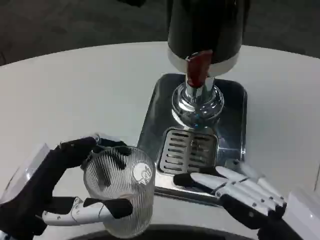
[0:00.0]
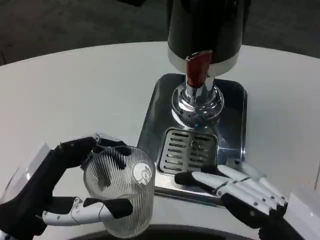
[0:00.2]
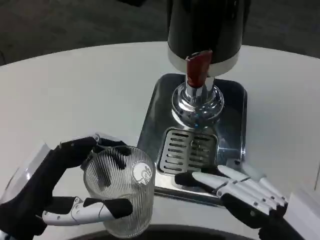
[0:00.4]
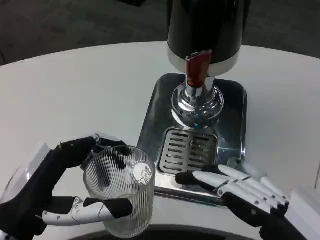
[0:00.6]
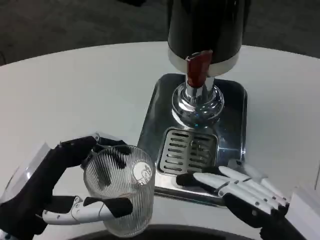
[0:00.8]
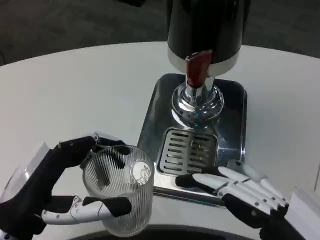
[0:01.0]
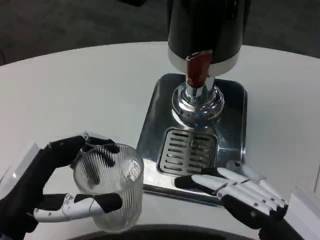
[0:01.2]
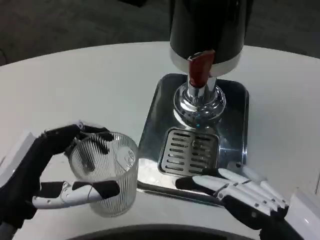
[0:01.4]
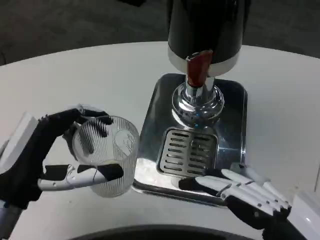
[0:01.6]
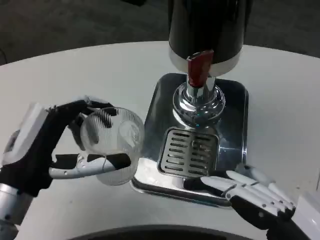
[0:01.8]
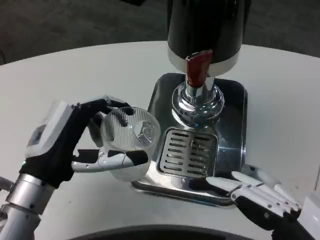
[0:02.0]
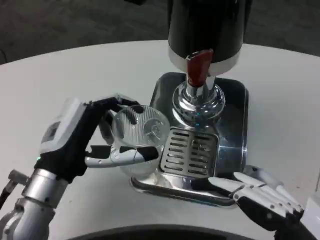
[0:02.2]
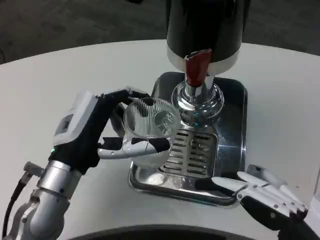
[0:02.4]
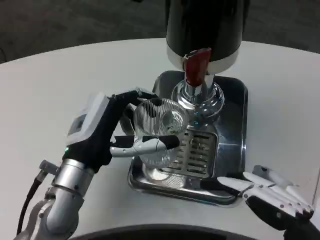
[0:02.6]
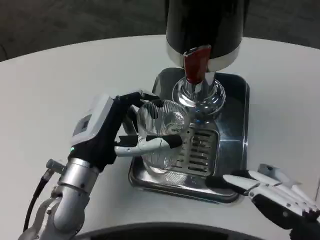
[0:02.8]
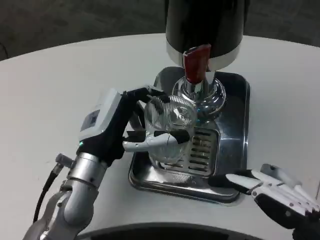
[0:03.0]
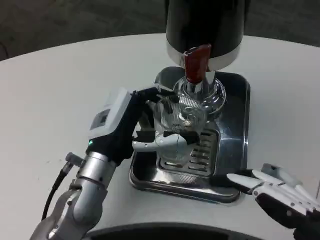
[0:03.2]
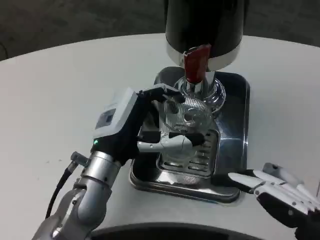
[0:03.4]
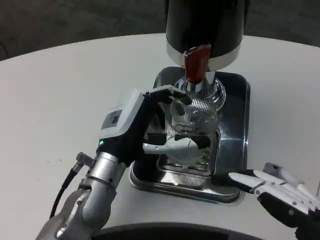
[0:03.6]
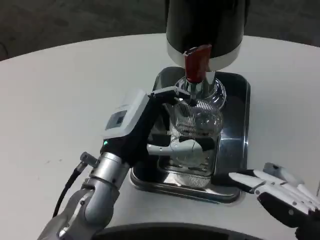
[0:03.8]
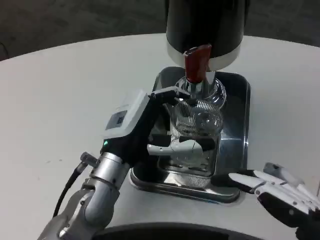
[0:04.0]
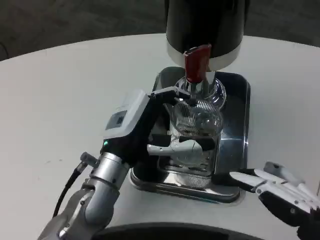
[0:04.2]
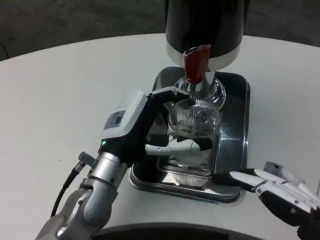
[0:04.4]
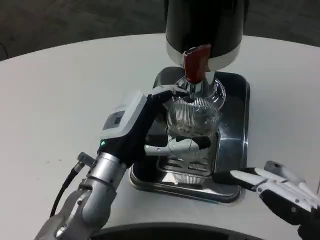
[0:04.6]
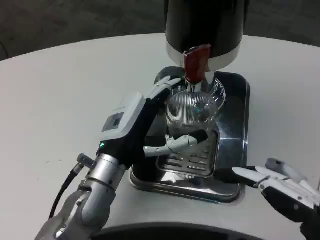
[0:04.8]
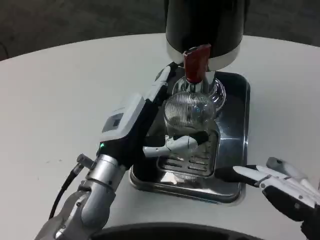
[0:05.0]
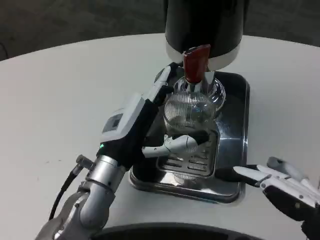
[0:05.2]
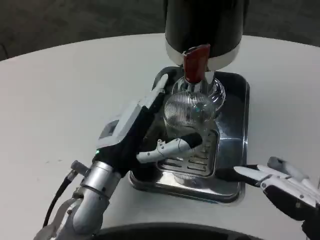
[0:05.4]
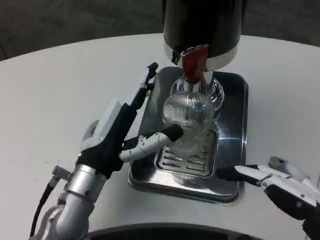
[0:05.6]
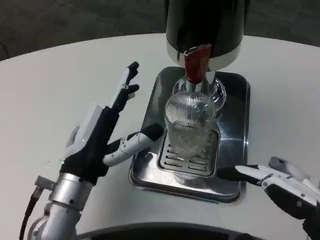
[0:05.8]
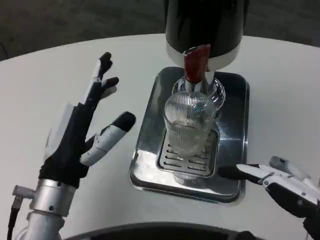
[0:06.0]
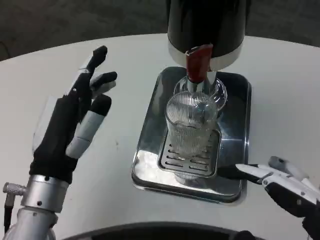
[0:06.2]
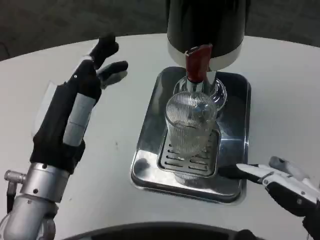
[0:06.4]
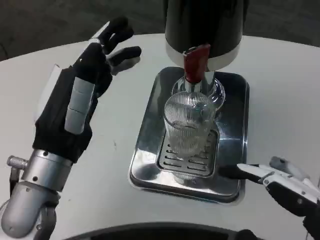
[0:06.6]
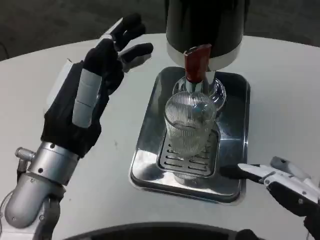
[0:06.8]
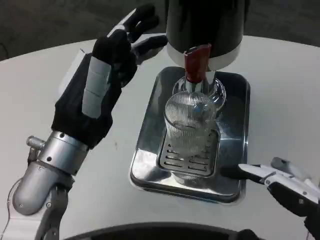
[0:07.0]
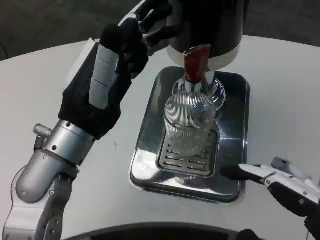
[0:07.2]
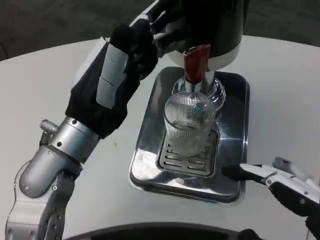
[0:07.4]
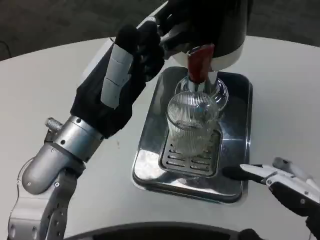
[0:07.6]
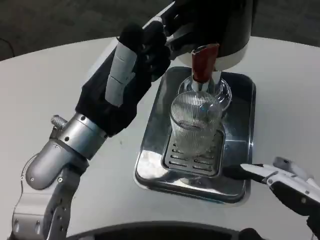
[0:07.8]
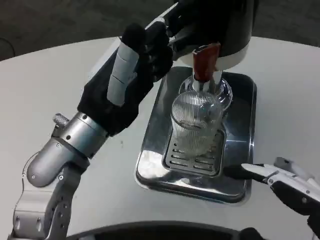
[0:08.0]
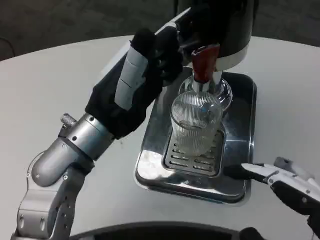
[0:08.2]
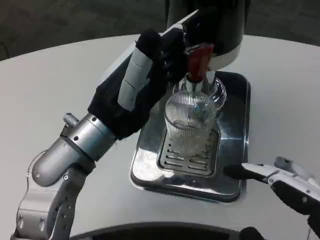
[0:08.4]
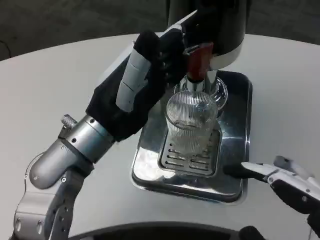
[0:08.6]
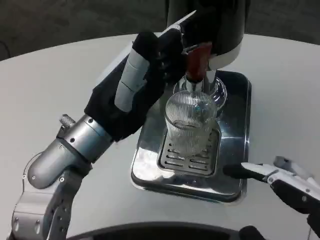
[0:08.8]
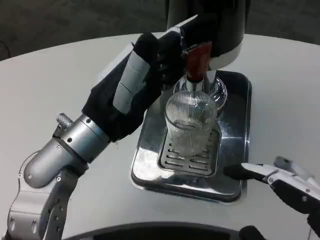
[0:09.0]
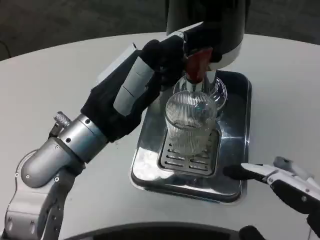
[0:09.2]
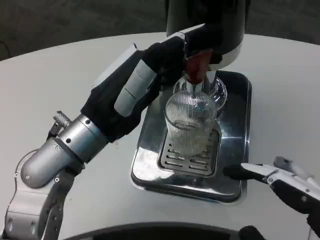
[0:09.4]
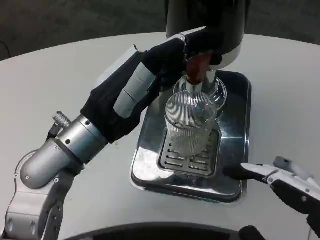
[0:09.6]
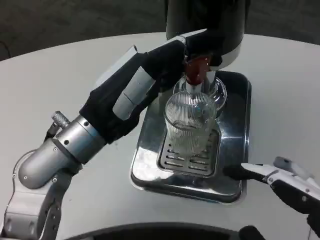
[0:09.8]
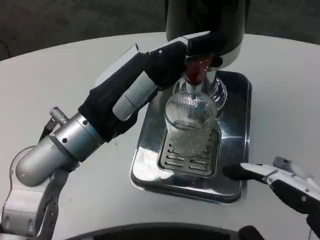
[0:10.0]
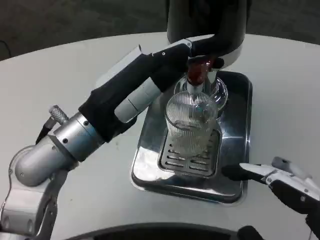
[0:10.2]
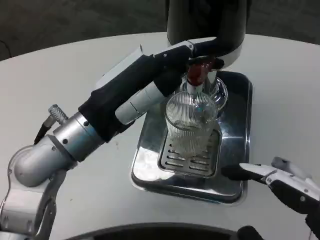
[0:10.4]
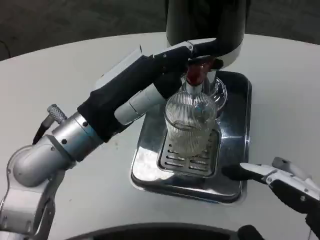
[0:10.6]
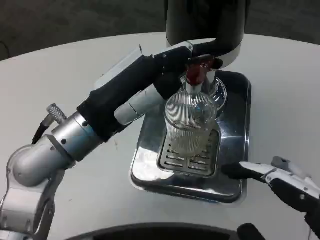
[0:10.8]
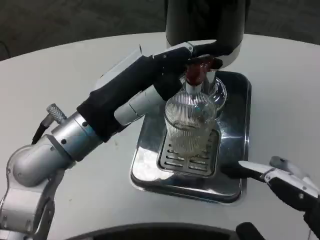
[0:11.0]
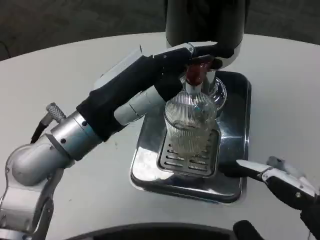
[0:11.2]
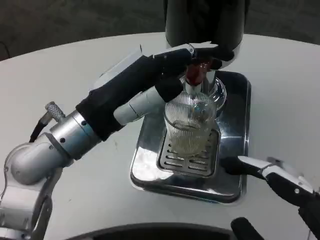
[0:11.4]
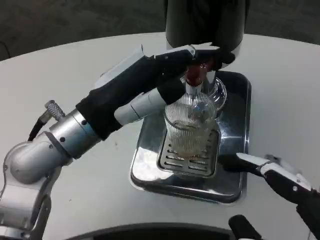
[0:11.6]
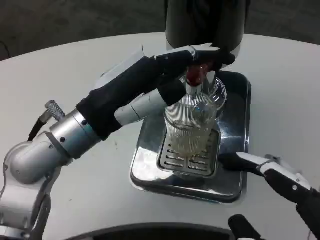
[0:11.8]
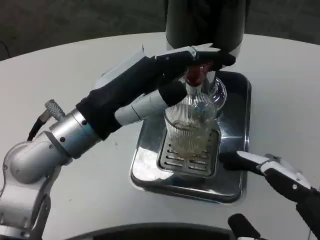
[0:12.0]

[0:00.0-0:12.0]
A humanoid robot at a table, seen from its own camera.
Task of the whole recording: Grasp the cup under the faucet to collect the drink, then remove the cup.
0:01.6 to 0:03.0: The left hand travels forward and to the right by roughly 15 cm.
0:03.0 to 0:04.4: There are only small adjustments of the hands.
0:04.4 to 0:06.0: The left hand moves backward and to the left, roughly 10 cm.
0:06.0 to 0:07.6: The left hand is displaced upward by roughly 10 cm.
0:07.6 to 0:09.0: The hands make only small movements.
0:09.0 to 0:10.4: The hands stay close to where they were, moving slightly.
0:10.4 to 0:12.0: There are only small adjustments of the hands.

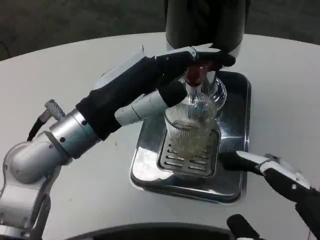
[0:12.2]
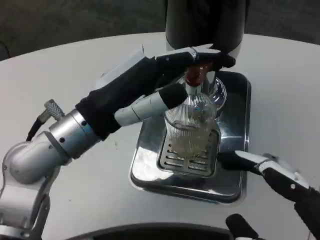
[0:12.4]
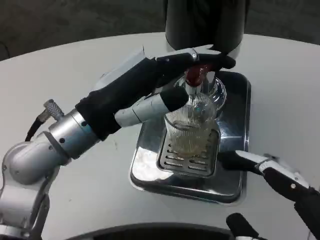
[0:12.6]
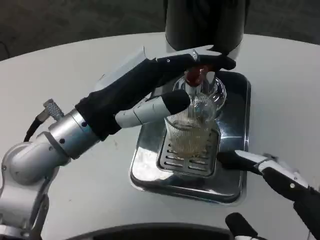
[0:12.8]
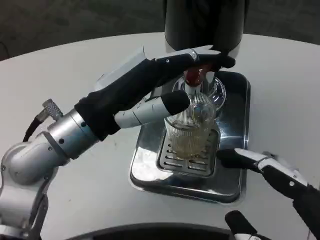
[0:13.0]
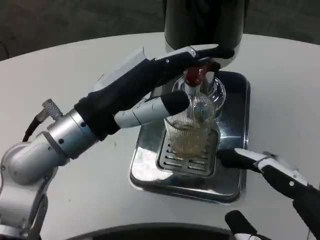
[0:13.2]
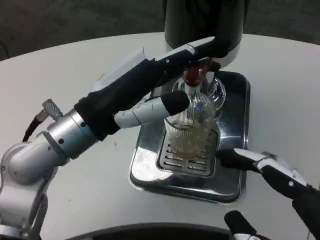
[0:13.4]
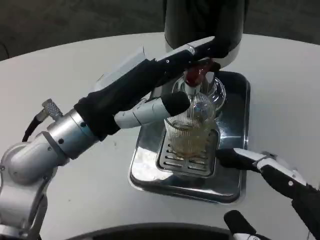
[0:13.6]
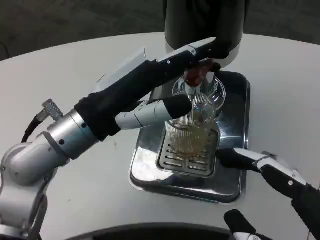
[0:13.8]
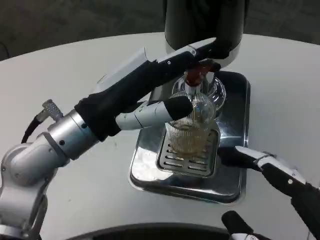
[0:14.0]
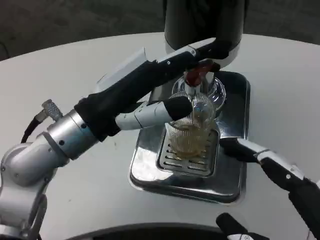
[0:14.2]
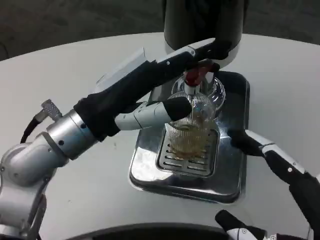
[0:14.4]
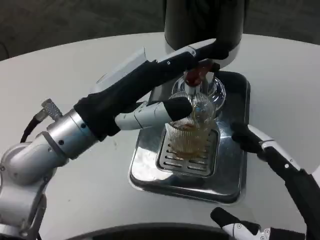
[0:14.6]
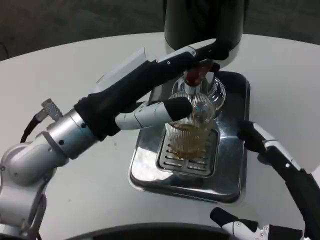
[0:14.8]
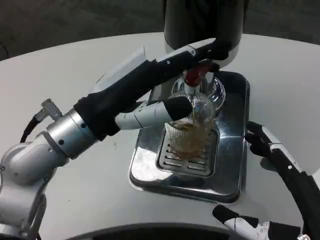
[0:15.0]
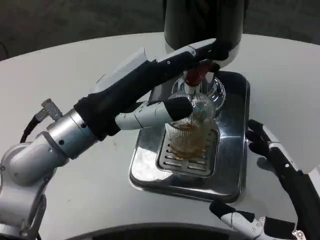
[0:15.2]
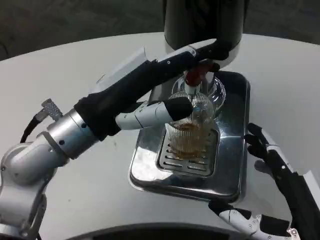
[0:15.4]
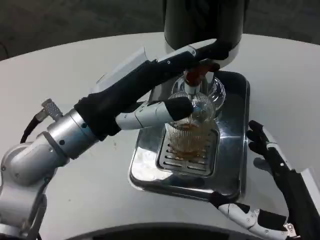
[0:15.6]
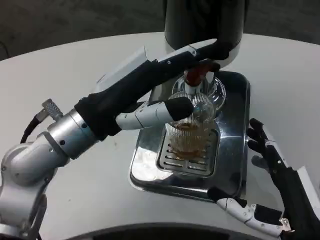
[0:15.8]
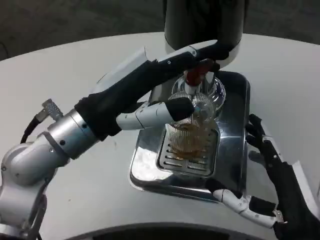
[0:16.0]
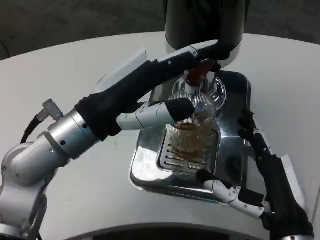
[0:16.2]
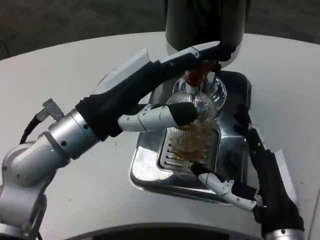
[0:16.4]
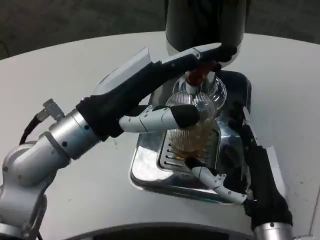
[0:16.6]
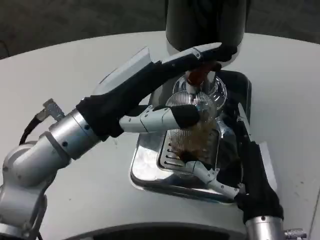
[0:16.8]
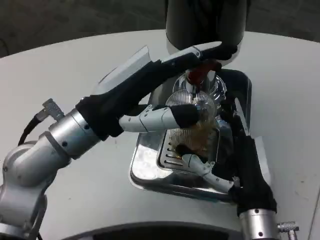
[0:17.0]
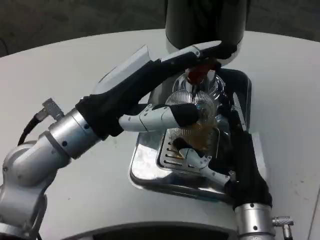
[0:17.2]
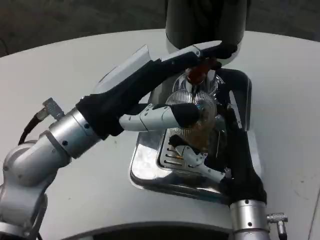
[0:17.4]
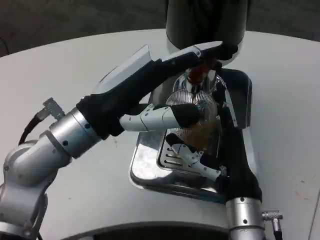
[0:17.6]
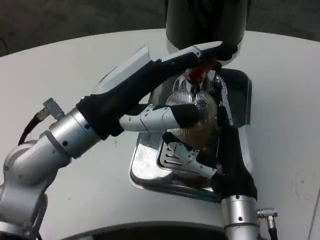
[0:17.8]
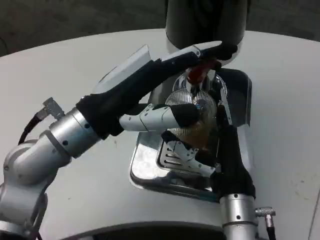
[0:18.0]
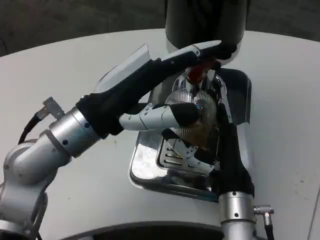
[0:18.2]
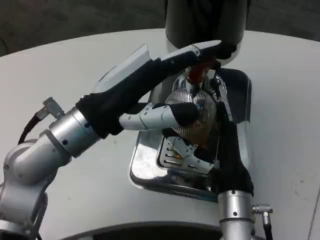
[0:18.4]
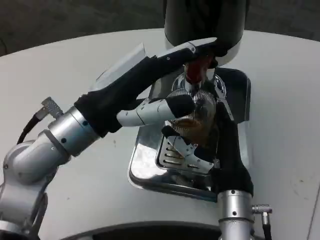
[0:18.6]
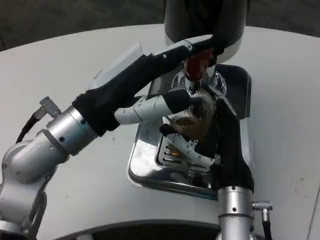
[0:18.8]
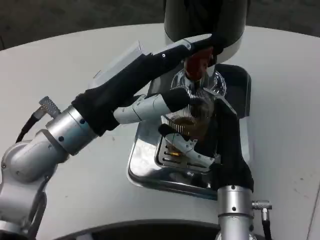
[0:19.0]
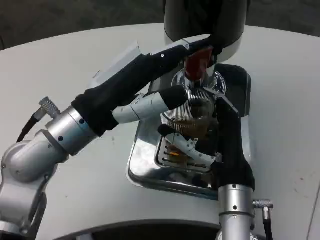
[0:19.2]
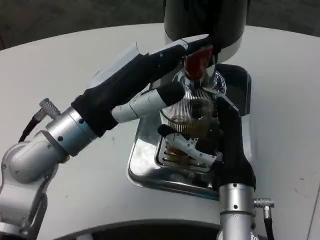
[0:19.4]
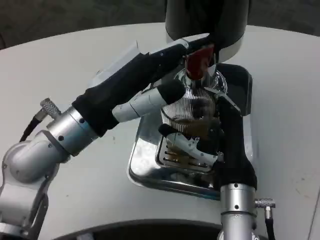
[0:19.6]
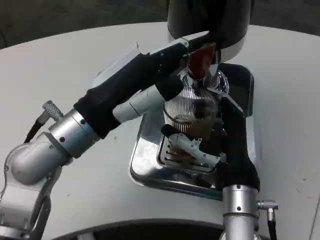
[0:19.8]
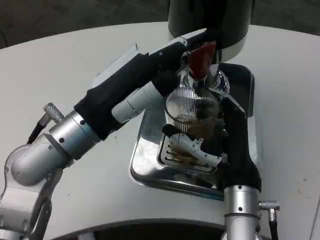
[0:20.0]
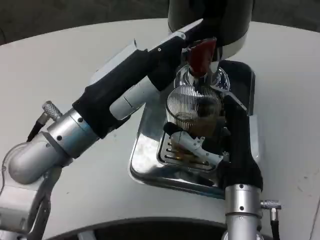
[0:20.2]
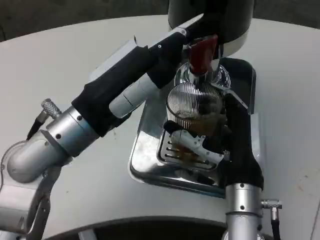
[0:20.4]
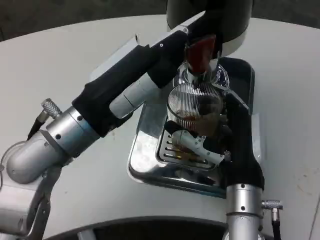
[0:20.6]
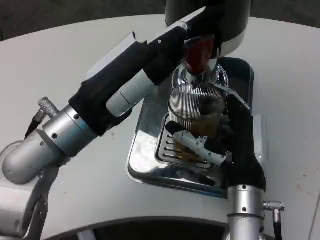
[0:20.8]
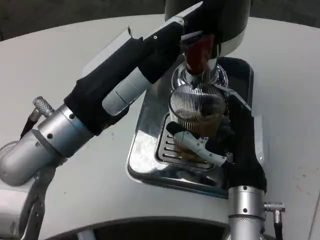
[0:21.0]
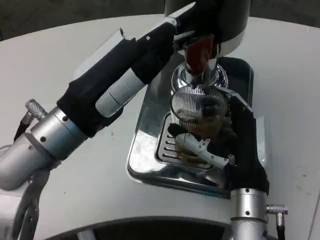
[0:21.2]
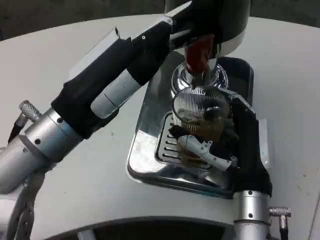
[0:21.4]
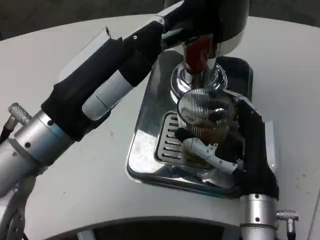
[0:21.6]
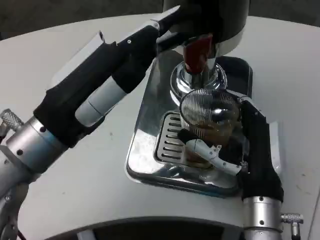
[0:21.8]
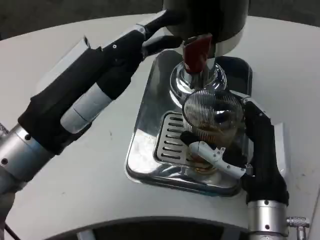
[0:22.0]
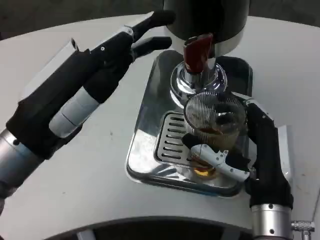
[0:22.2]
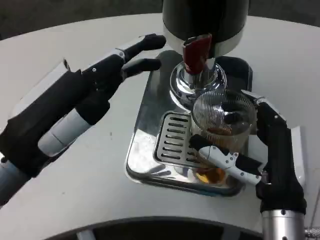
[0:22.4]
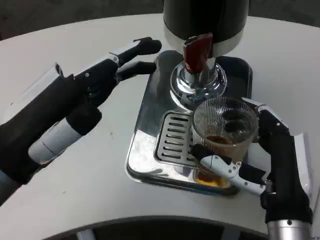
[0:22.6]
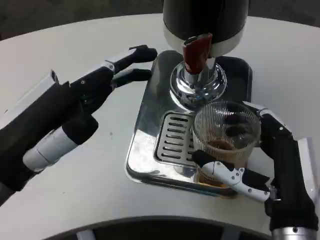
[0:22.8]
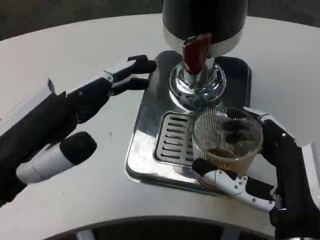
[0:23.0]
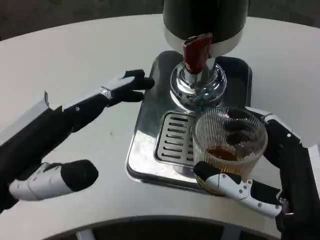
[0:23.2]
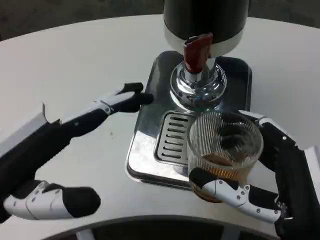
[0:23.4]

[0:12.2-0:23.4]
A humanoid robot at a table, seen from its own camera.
Task of the whole recording: Grasp the cup under the faucet to collect the drink, then remove the cup.
0:12.2 to 0:13.8: The hands make only small movements.
0:13.8 to 0:15.4: The right hand is displaced forward and downward by some 10 cm.
0:15.4 to 0:17.0: The right hand shifts approximately 10 cm forward and to the left.
0:20.2 to 0:21.8: The left hand changes place by roughly 5 cm.
0:21.8 to 0:23.4: The right hand goes approximately 10 cm backward; the left hand heads backward and to the left, covering roughly 10 cm.
